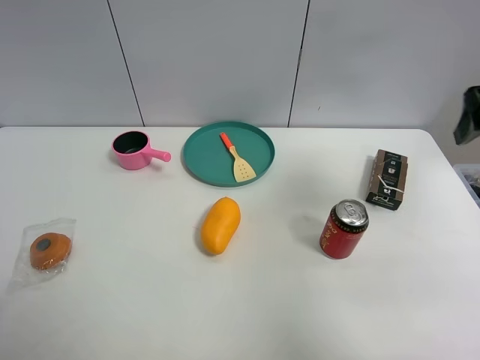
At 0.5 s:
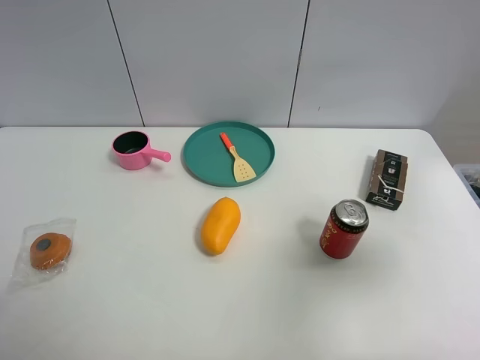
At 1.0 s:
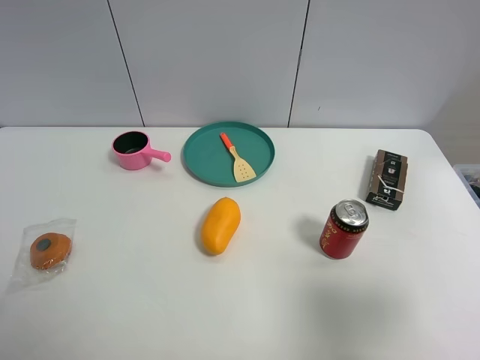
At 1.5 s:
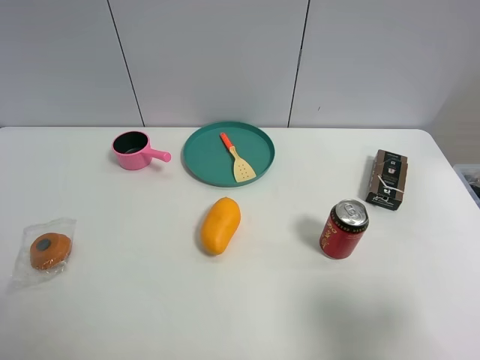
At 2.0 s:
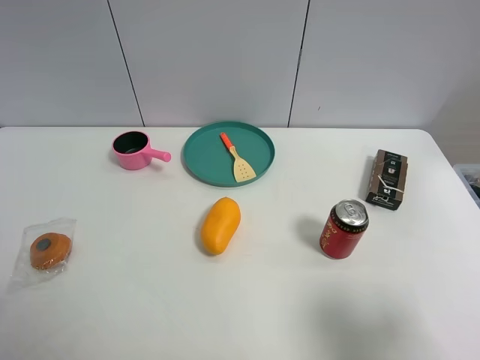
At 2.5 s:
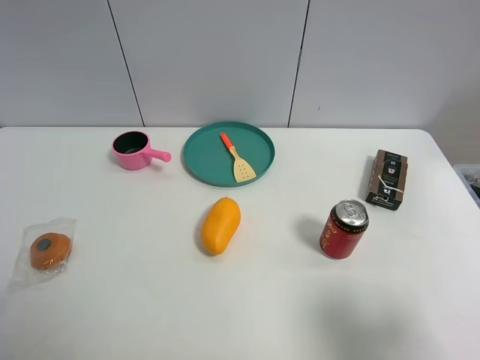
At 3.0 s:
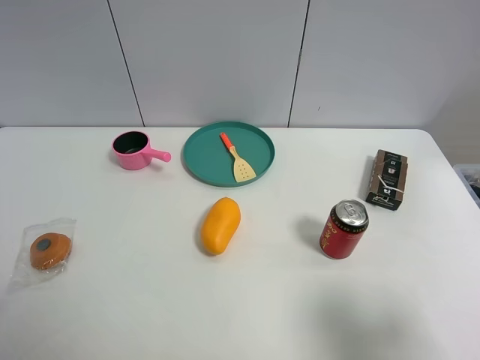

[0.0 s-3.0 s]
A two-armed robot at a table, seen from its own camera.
Task of the whole recording: the gripper move the object.
0.0 to 1.5 s: The right gripper heads backward, covering approximately 25 cm.
1.5 to 3.0 s: The two grippers keep their place.

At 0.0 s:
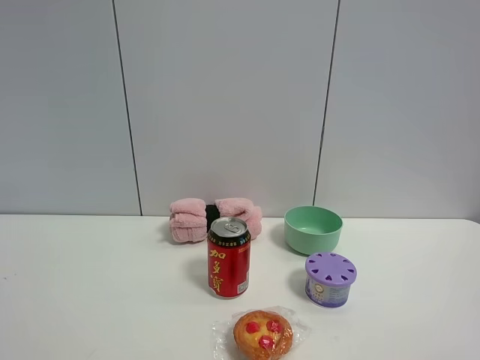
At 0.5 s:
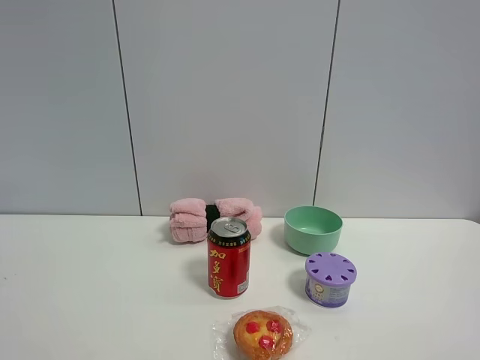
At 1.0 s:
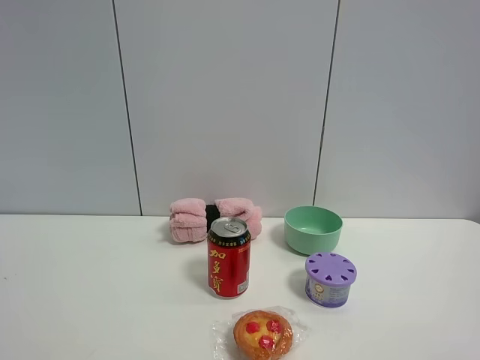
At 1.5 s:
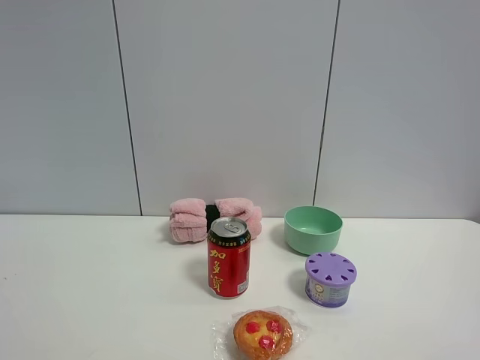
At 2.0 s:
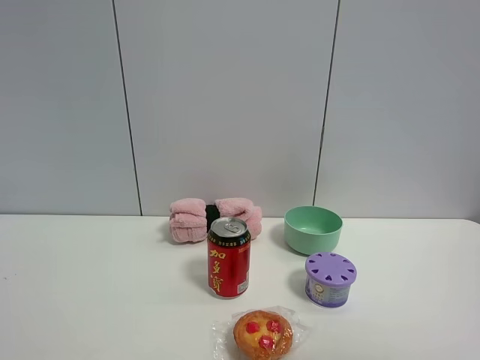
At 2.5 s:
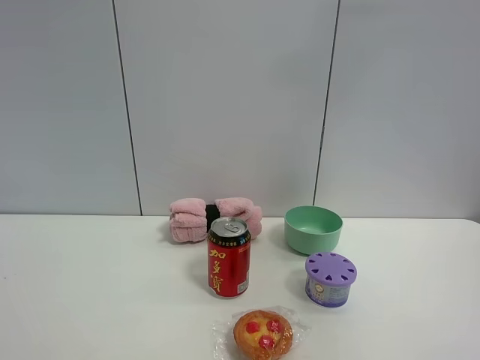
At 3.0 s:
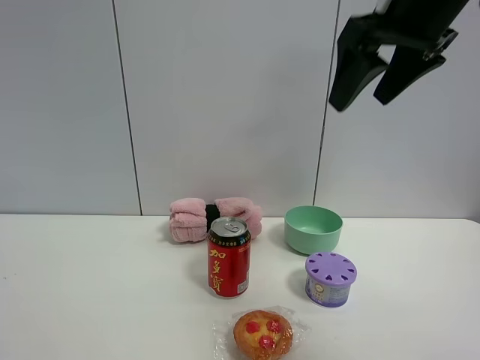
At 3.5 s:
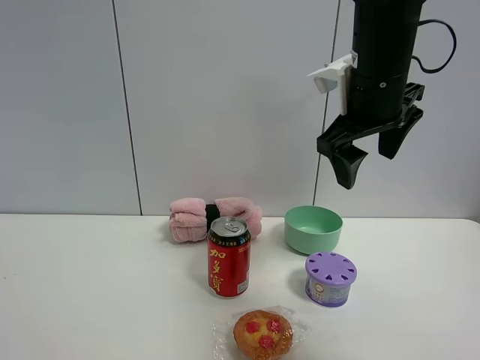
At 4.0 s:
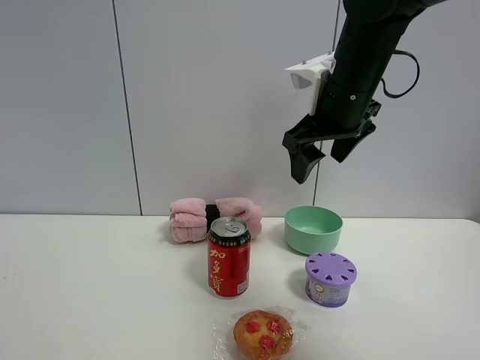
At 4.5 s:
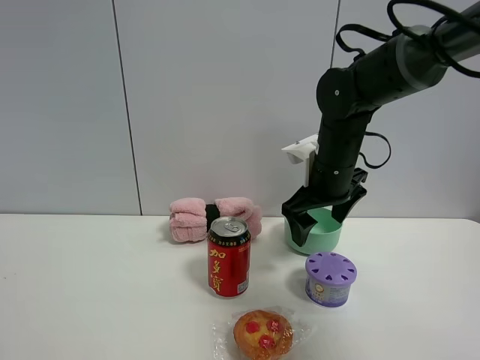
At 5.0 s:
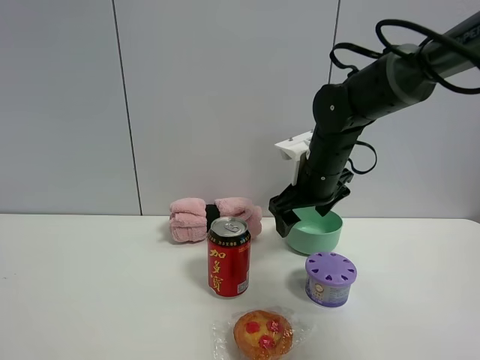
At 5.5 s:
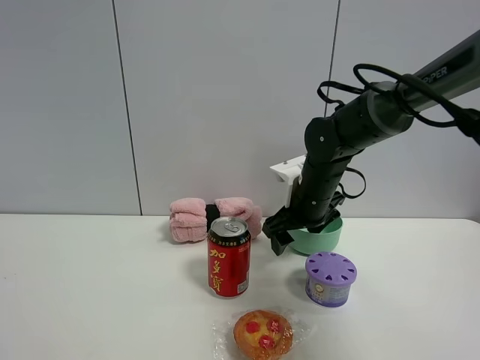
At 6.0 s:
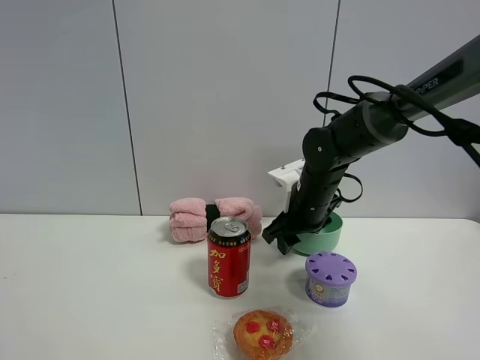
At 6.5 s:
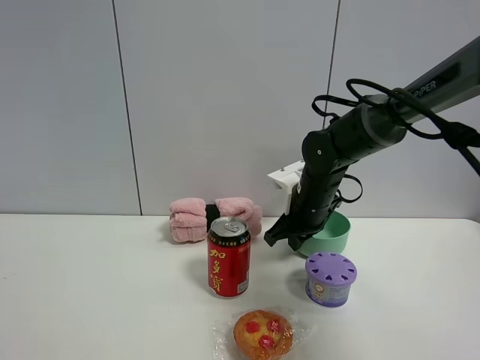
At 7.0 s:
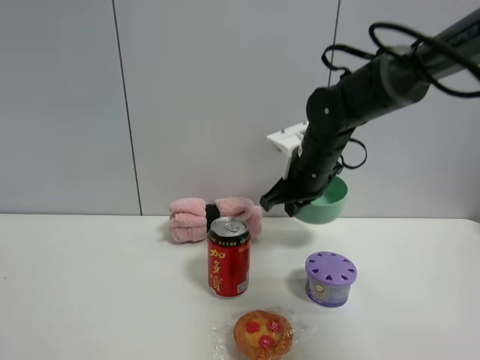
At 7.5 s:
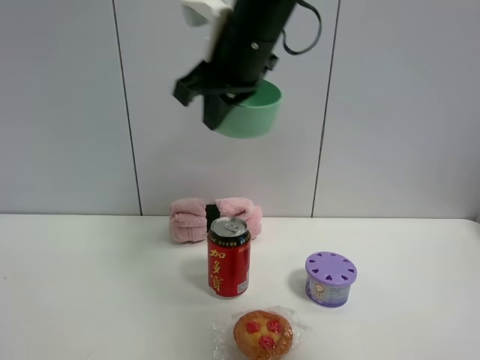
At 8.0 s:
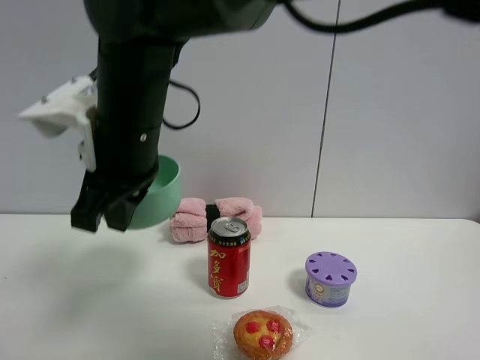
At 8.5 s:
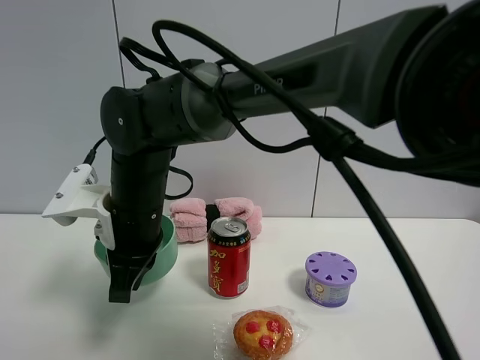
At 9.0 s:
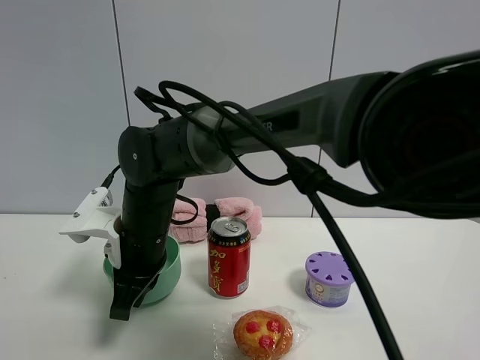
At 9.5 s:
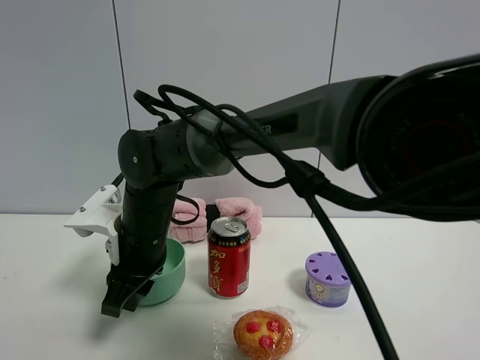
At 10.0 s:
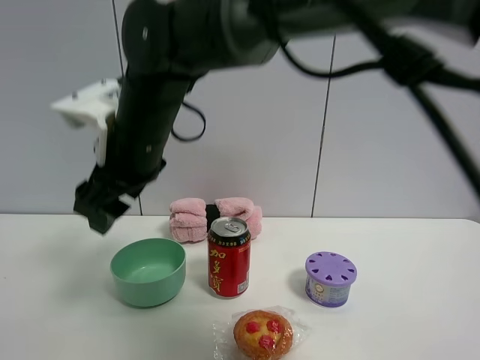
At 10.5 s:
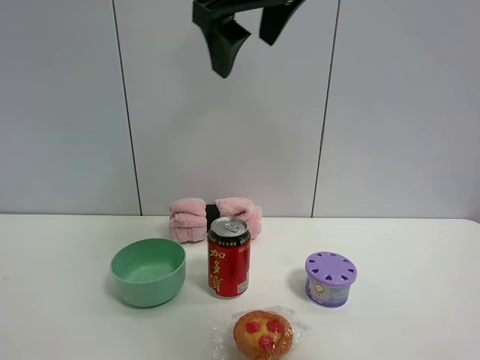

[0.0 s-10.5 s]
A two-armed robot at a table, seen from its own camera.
Task of the whole recording: the gripper move the object.
Step, 0.0 to 6.5 s: Grasp the green bowl with the right gripper.
Step, 7.0 to 9.5 s: Place the green bowl on the table with the right gripper.
2.0 to 4.0 s: The right gripper is displaced forward and to the left by some 40 cm.
4.0 to 6.5 s: The right gripper shifts some 15 cm downward, and closes up.
6.5 to 8.5 s: The right gripper travels to the left and backward by approximately 25 cm, and travels upward and back again, roughly 25 cm each way.
8.5 to 10.5 s: The right gripper moves upward and to the right, approximately 30 cm, and opens.

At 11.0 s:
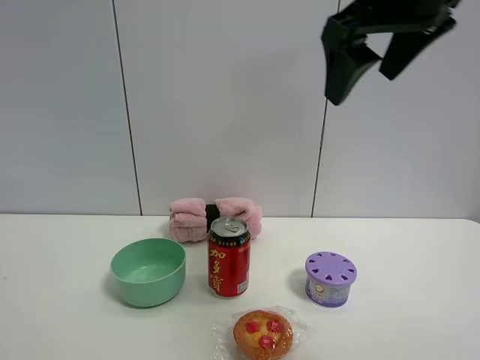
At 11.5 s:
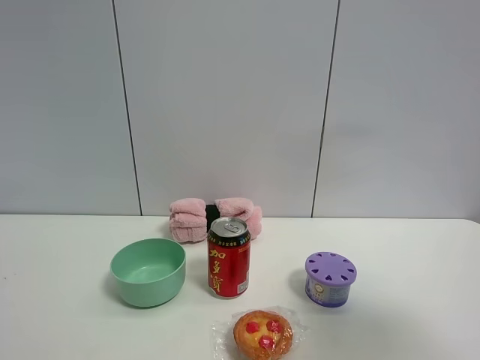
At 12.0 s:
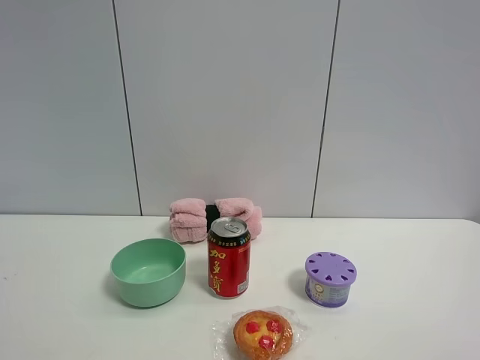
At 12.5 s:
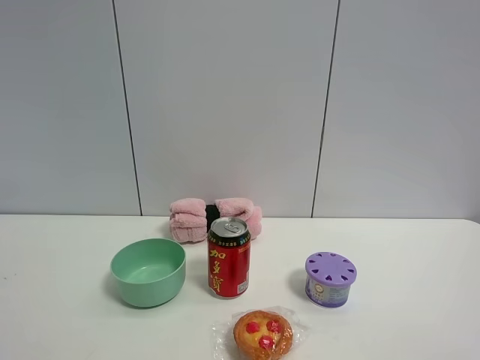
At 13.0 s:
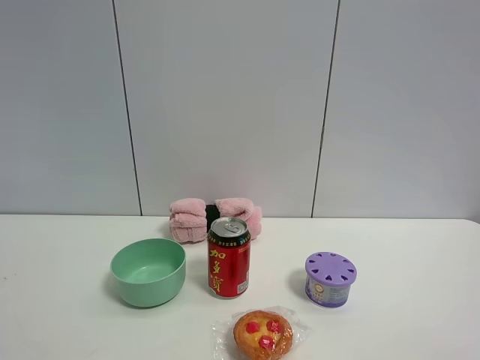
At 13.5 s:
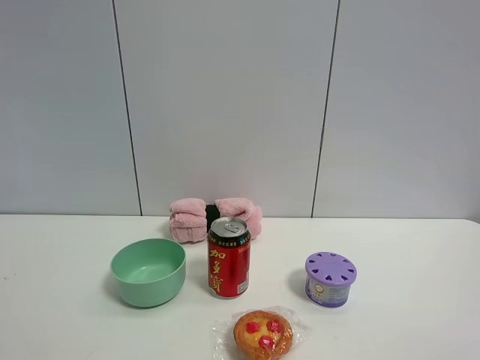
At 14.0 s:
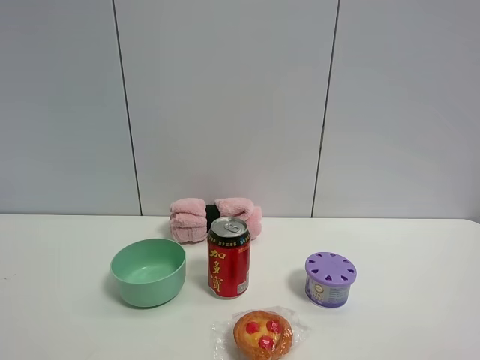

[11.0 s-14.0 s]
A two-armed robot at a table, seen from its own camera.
Task of the whole recording: the gripper move the object.
11.0 to 12.5 s: The right gripper is displaced backward, to the right and downward by about 30 cm.
12.5 to 14.0 s: The two grippers keep their place.

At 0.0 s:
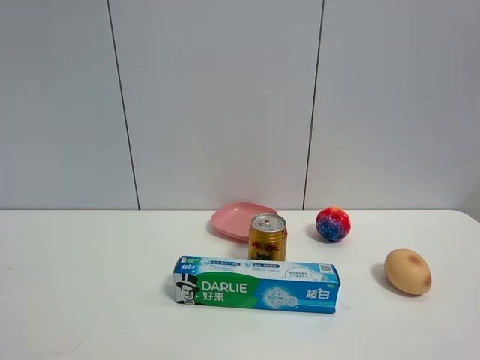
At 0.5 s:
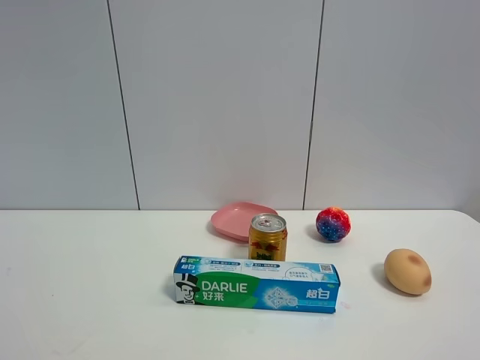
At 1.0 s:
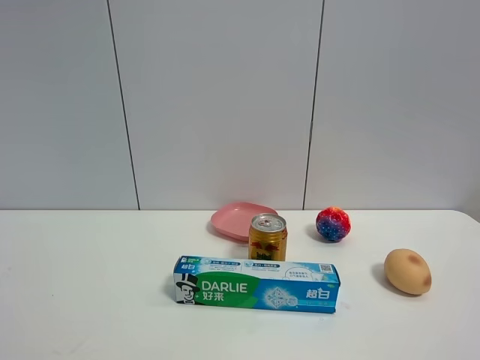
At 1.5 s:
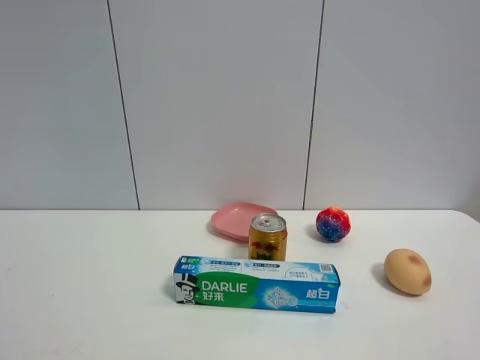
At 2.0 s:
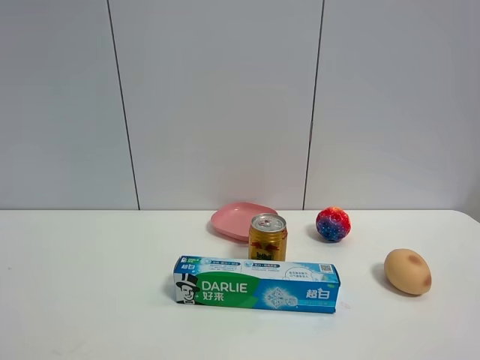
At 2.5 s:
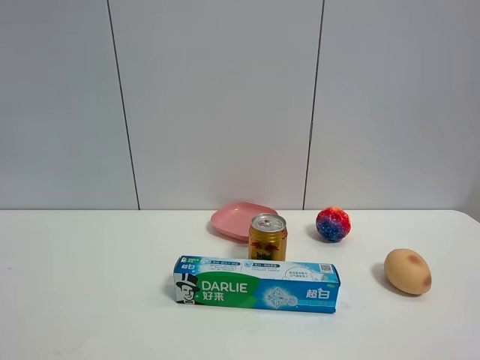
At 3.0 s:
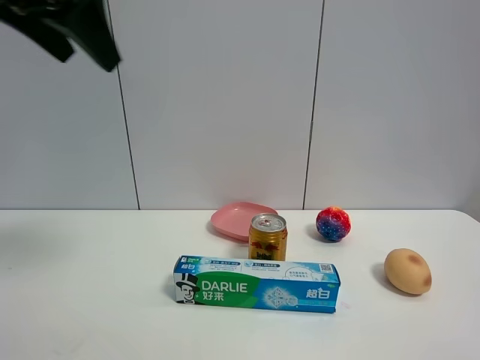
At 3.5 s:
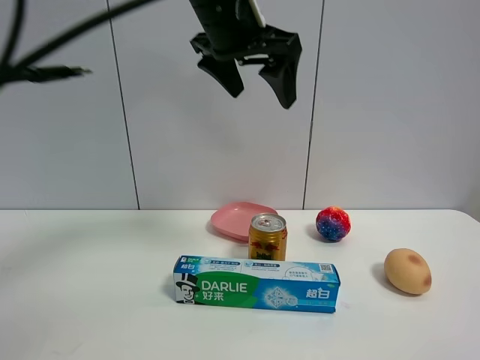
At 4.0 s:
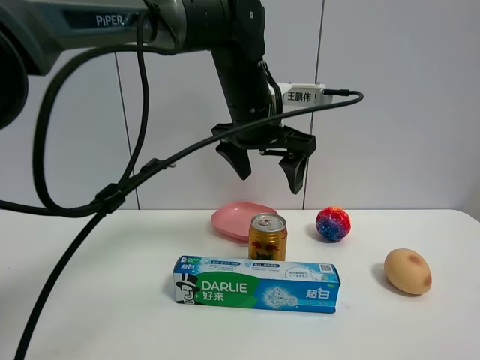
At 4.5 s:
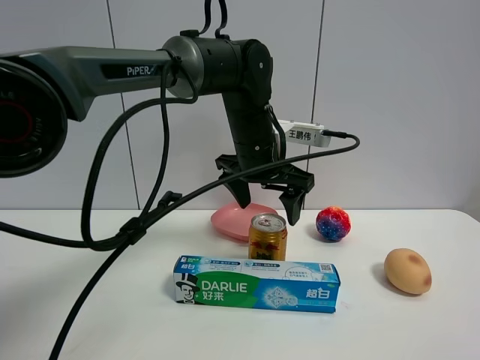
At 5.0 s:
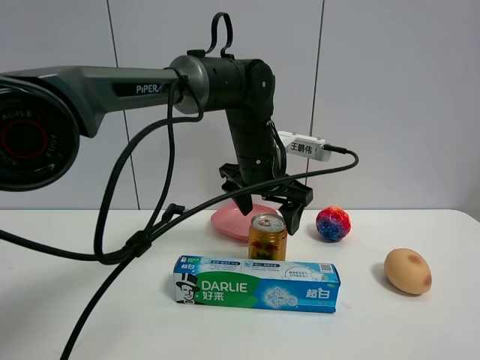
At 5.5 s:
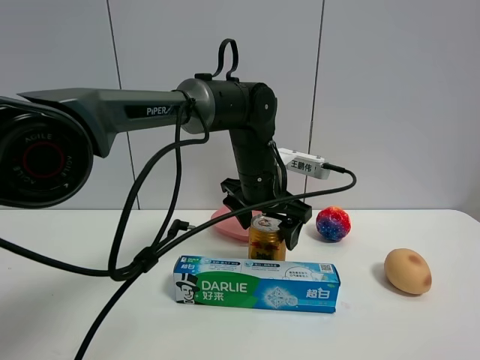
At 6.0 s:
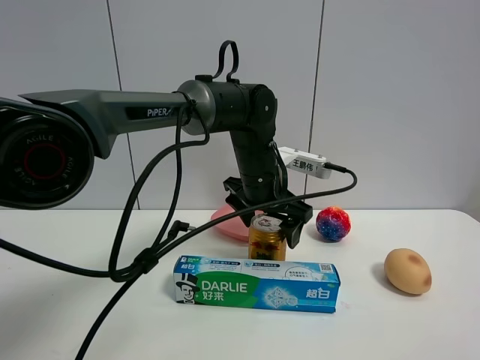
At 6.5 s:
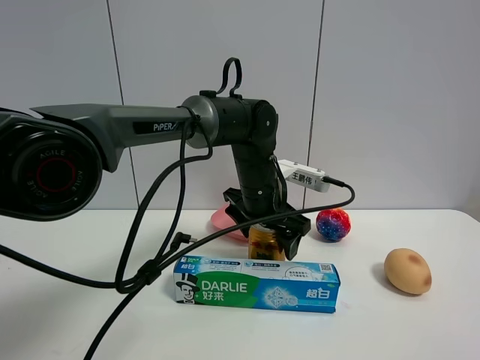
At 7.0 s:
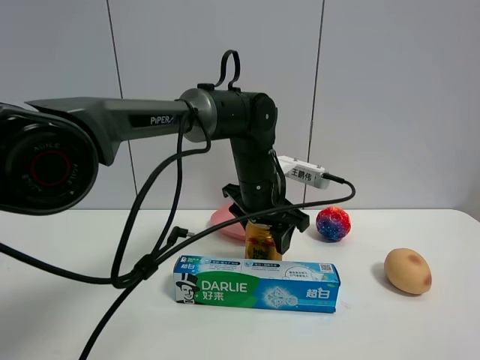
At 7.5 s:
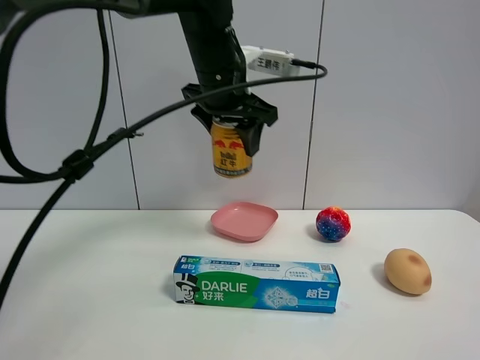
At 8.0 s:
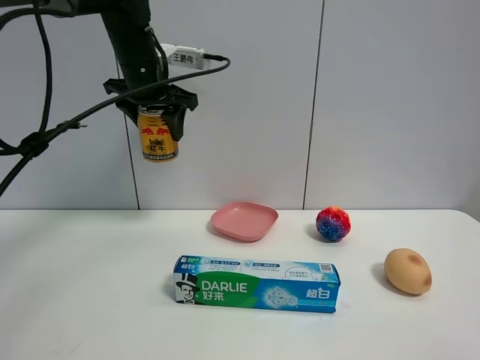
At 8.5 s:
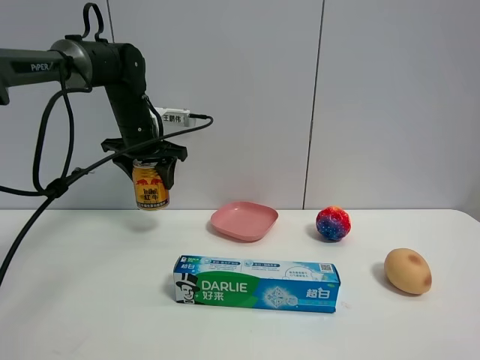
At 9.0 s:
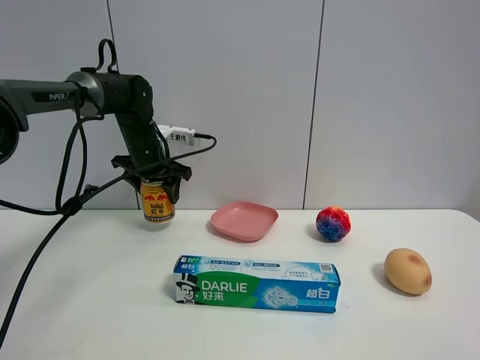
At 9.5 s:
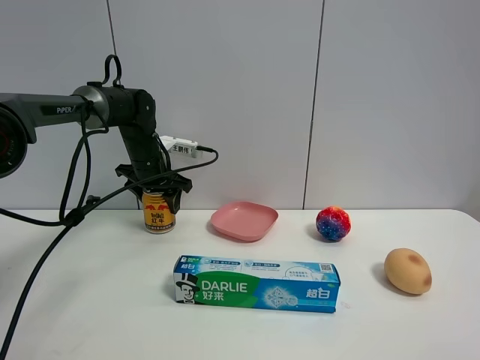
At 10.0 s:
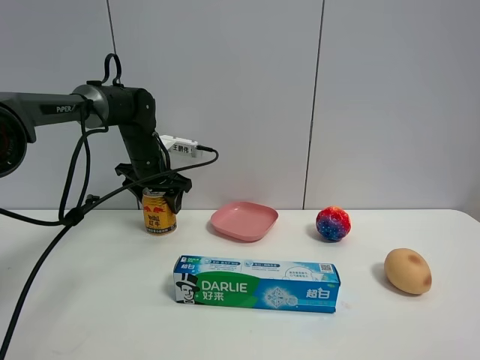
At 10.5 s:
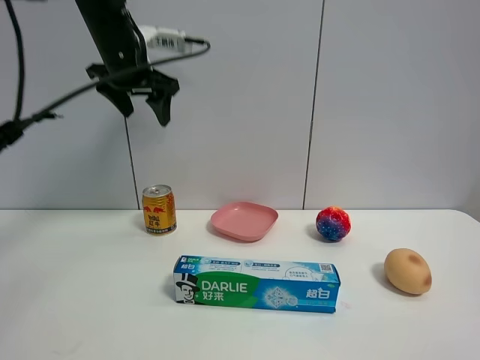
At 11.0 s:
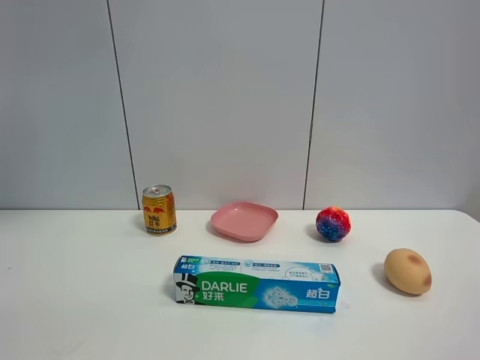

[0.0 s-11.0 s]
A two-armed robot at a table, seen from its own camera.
Task of the whole recording: the gripper move the object.
Step, 0.0 to 6.5 s: Grasp the red bull with the left gripper.
Step, 7.0 to 10.0 s: Place the red bull on the table with the left gripper.
2.0 to 3.5 s: The left gripper shifts approximately 50 cm forward and to the right, and opens.
3.5 to 5.5 s: The left gripper is displaced downward by about 20 cm.
5.5 to 7.5 s: The left gripper shifts some 15 cm upward and to the left, and closes its fingers.
7.5 to 9.0 s: The left gripper goes some 20 cm to the left, downward and forward.
9.0 to 11.0 s: The left gripper travels upward and backward by some 40 cm, and opens up.
